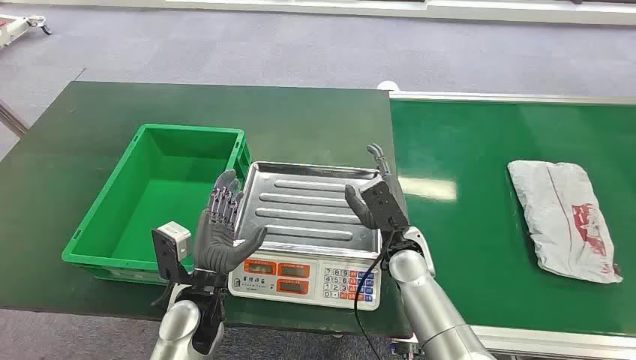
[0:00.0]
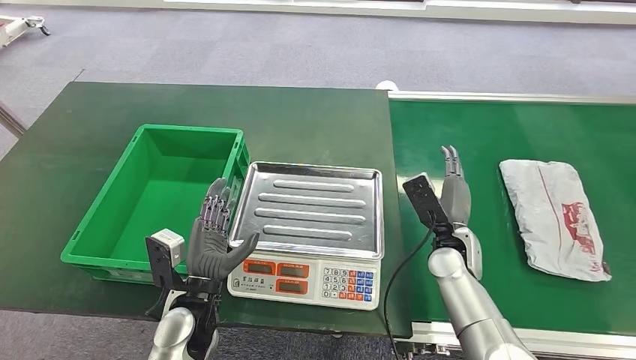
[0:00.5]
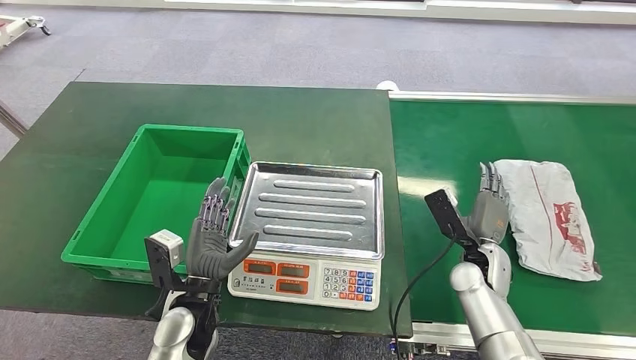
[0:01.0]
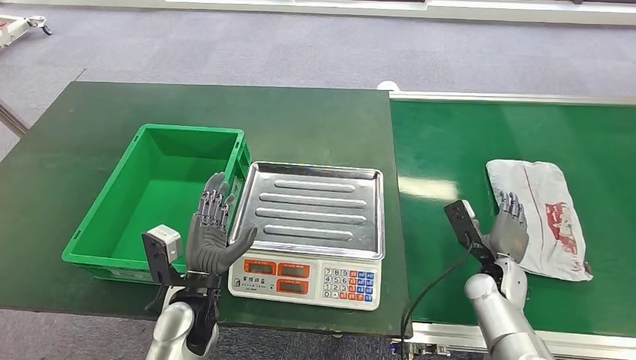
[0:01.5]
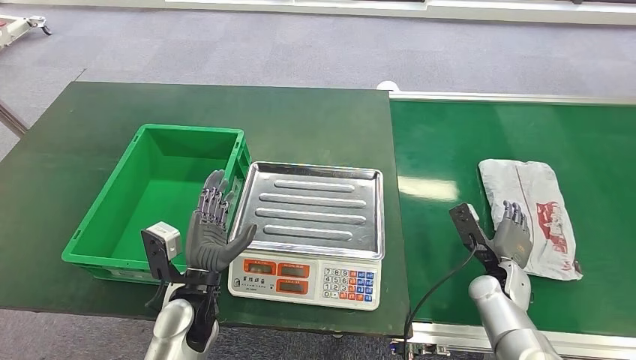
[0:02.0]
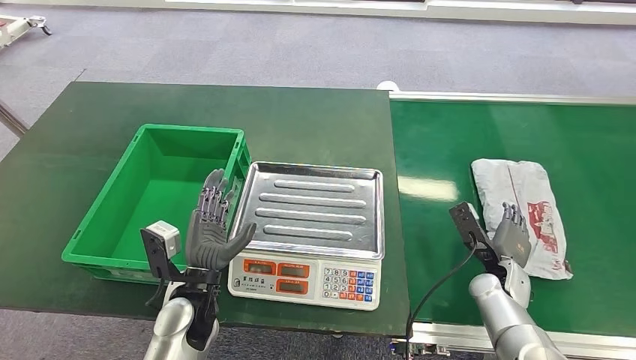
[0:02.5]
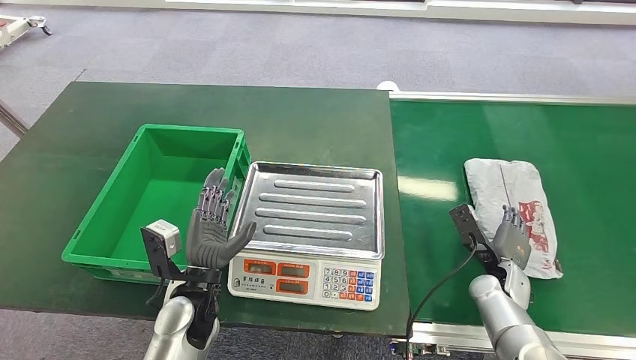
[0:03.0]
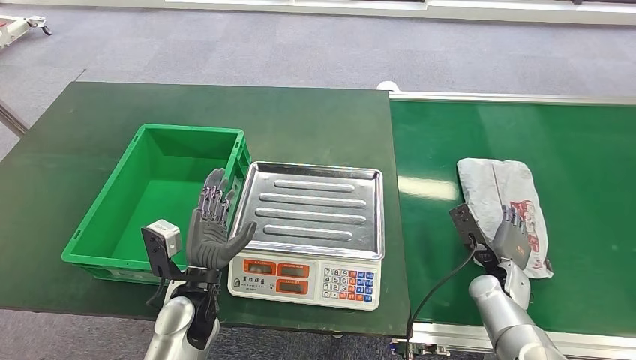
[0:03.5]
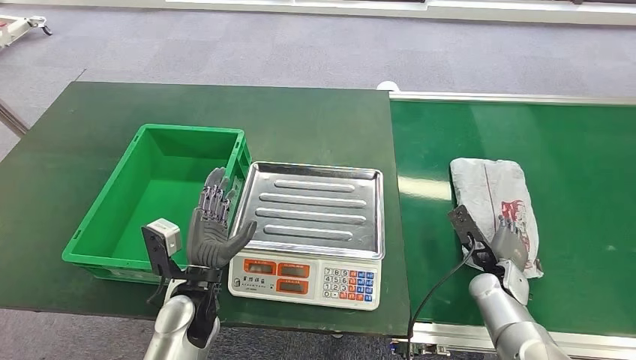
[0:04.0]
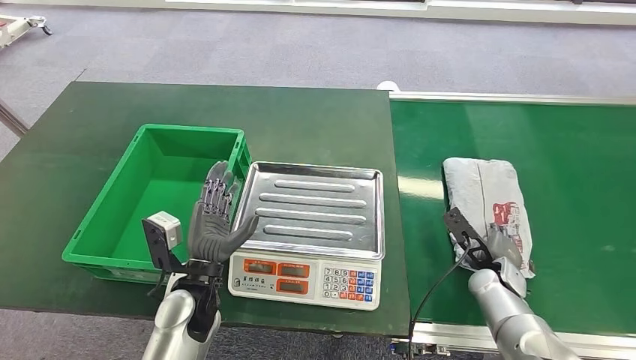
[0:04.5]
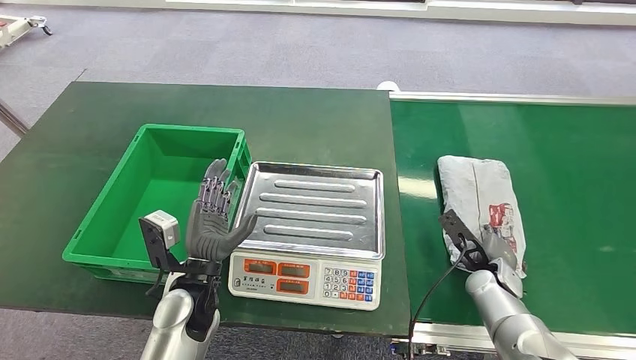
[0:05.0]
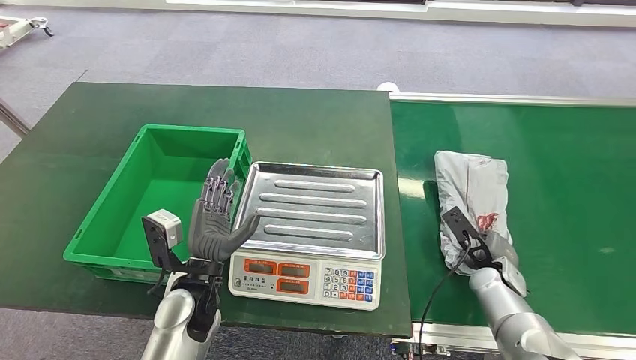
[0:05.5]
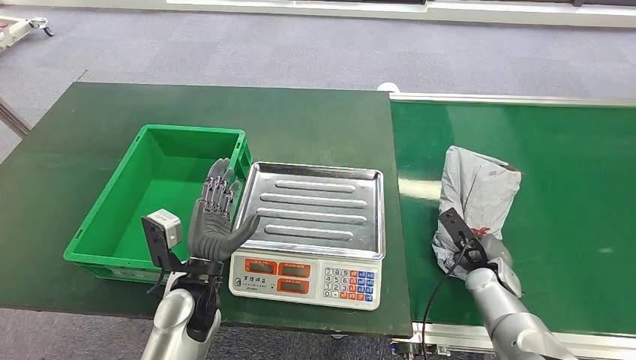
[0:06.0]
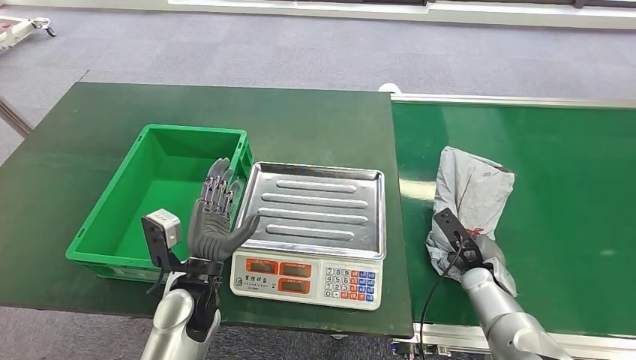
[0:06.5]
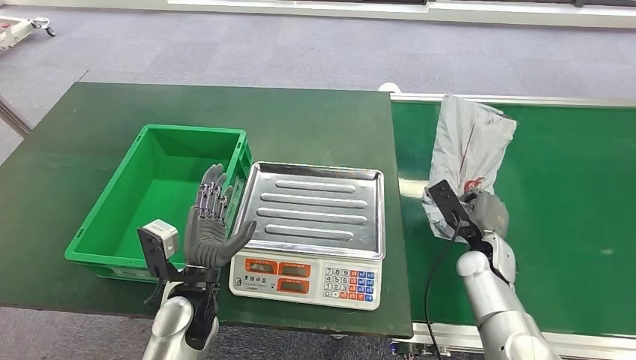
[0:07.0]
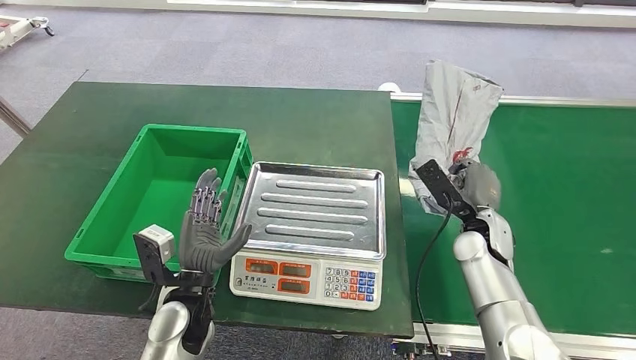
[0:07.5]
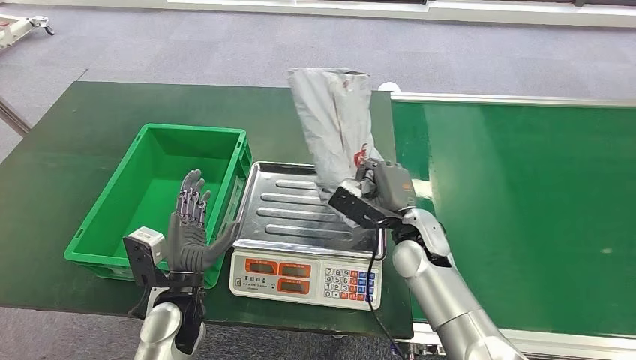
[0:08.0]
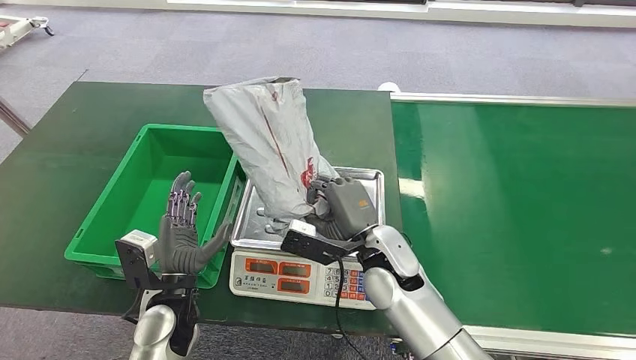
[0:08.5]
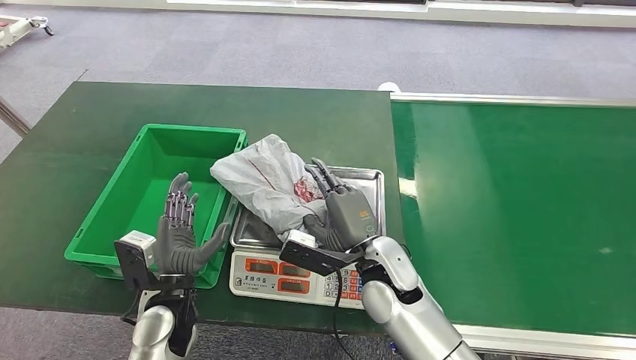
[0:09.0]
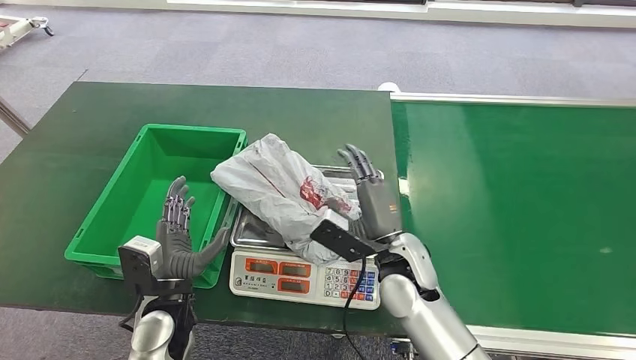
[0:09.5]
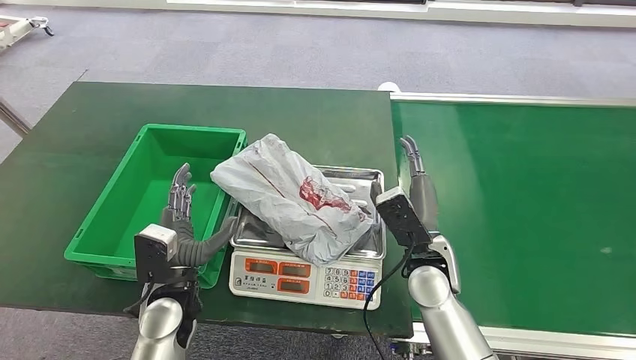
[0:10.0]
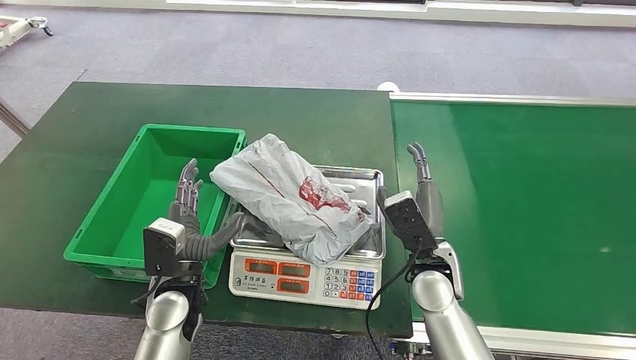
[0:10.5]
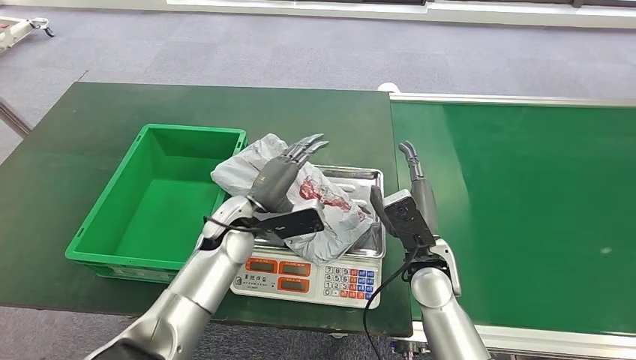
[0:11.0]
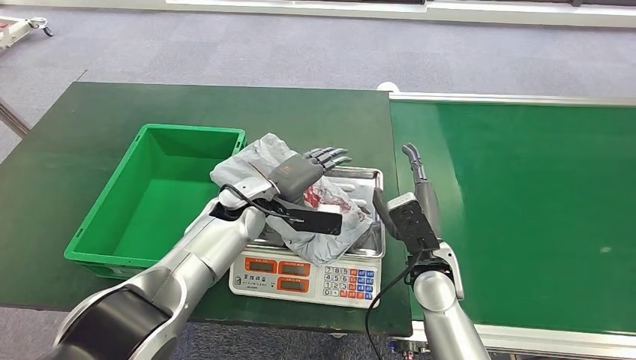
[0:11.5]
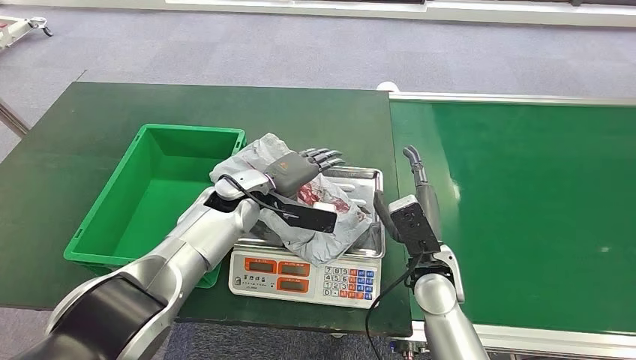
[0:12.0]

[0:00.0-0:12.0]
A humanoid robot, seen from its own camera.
Step, 0:00.0 to 0:07.0: Pick up the package from the conveyor belt.
Step, 0:07.5 to 0:10.5: Place the package onto the inbound machine.
0:02.0 to 0:04.0: There are only small adjustments of the hands.
0:04.0 to 0:06.0: The hands move only a little.
0:08.0 to 0:10.0: The right hand goes to the left and returns, some 5 cm each way.
0:10.0 to 0:12.0: The left hand goes roughly 20 cm forward.

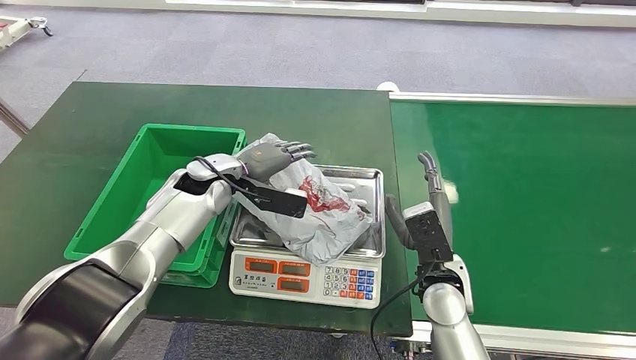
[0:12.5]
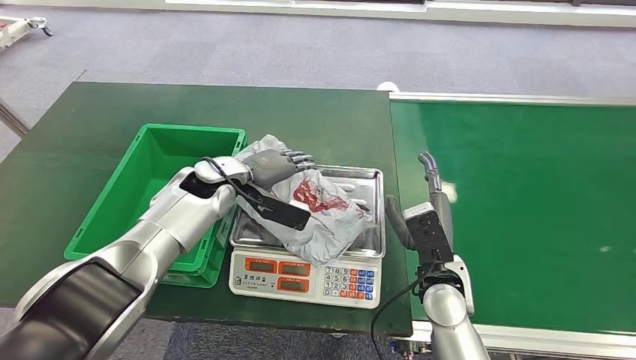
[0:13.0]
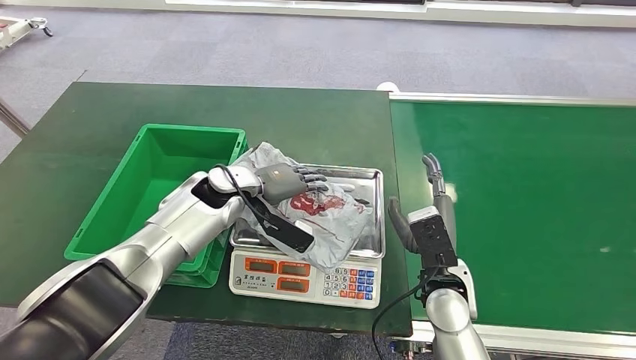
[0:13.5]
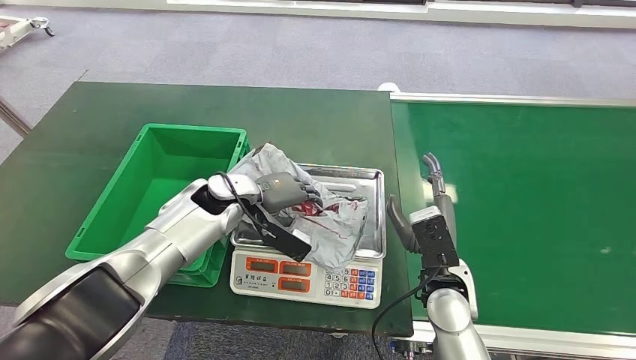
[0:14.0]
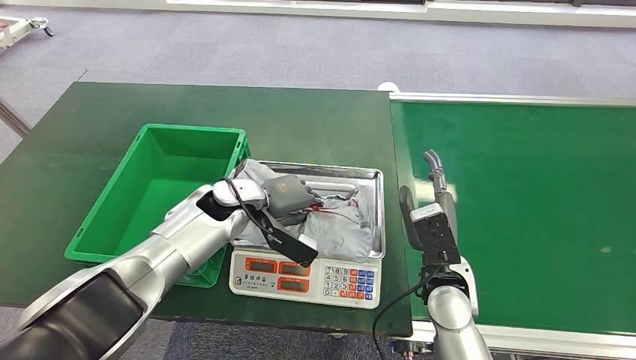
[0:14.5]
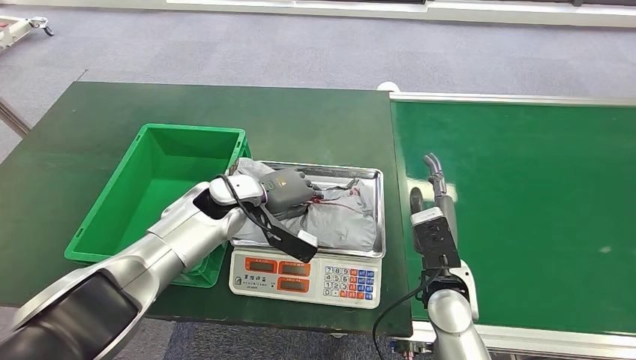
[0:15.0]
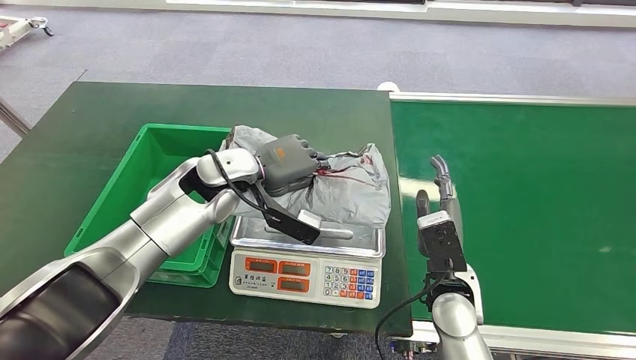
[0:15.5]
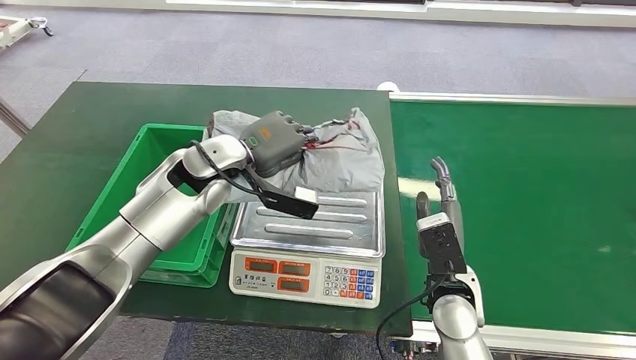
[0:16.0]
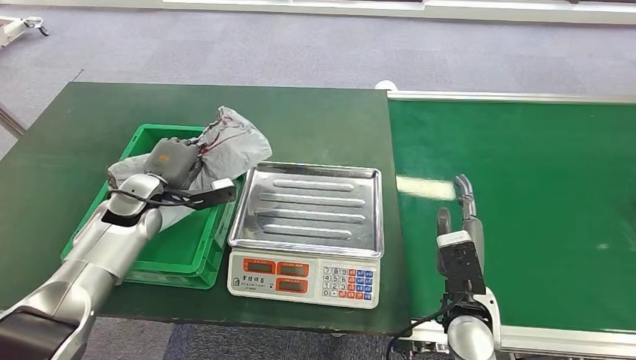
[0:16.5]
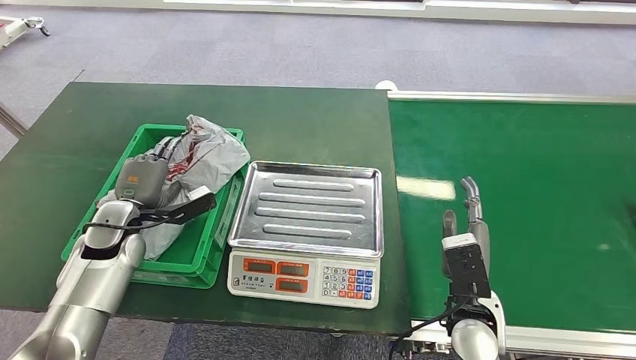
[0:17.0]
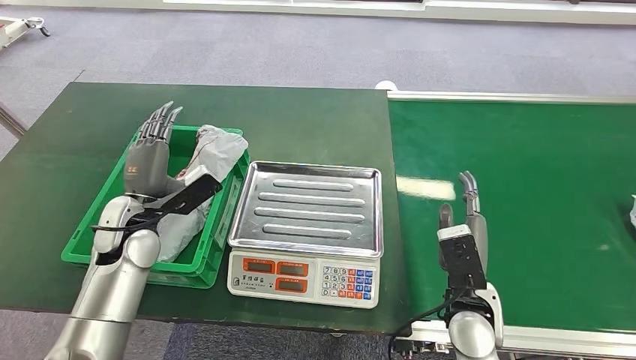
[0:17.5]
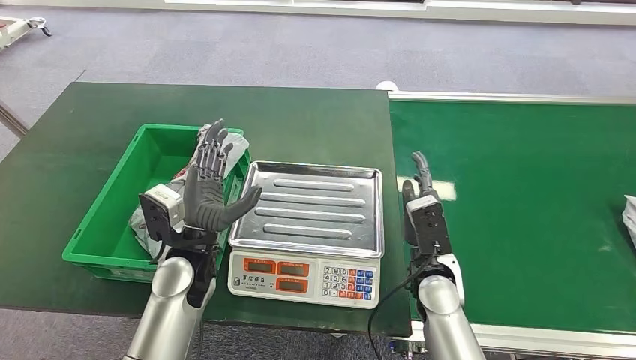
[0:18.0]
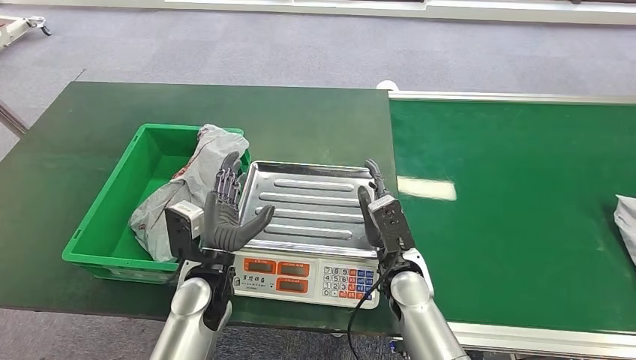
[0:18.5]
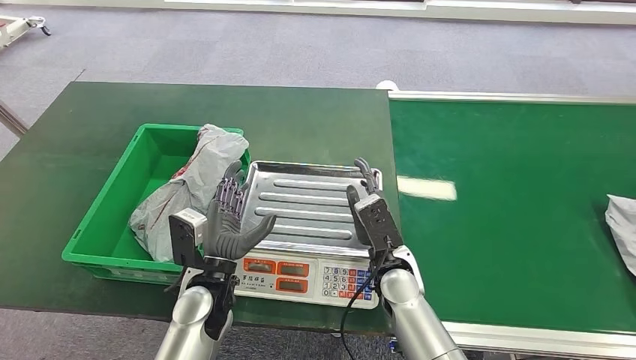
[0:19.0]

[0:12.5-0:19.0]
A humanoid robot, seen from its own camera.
Step, 0:12.5 to 0:16.0: Pick up the package from the inbound machine.
Step, 0:16.5 to 0:19.0: Place the package into the parcel locker.
0:12.5 to 0:14.5: The hands stay close to where they were, moving slightly.
0:17.0 to 0:19.0: The right hand goes about 15 cm to the left and forward, while the left hand moves to the right, about 20 cm.
